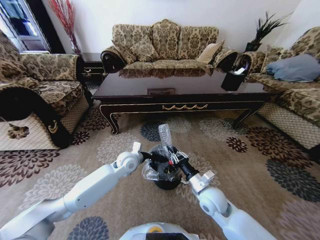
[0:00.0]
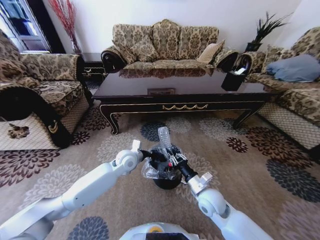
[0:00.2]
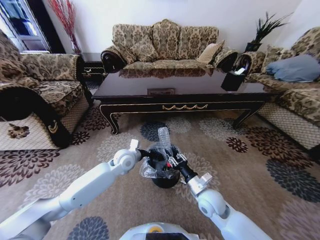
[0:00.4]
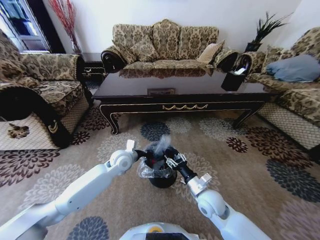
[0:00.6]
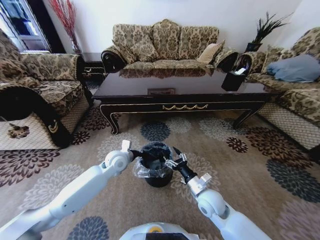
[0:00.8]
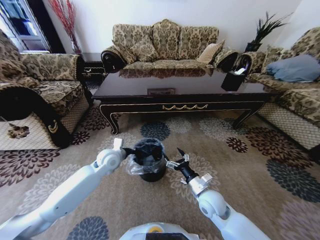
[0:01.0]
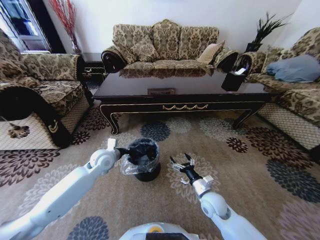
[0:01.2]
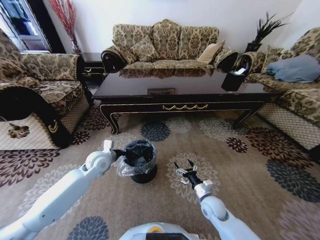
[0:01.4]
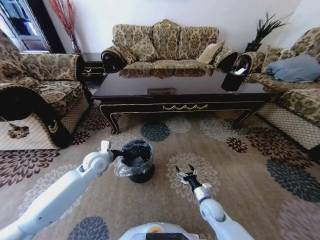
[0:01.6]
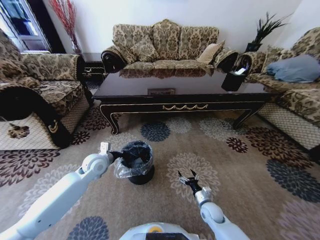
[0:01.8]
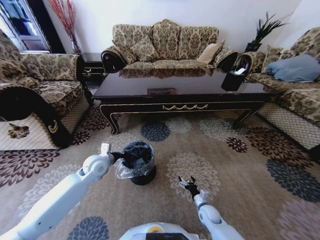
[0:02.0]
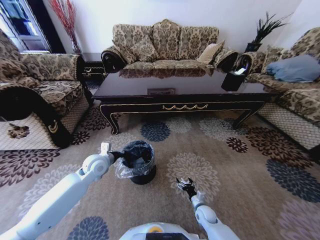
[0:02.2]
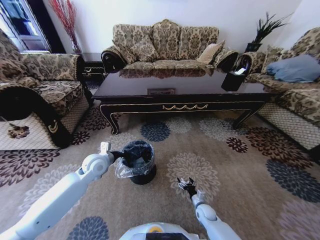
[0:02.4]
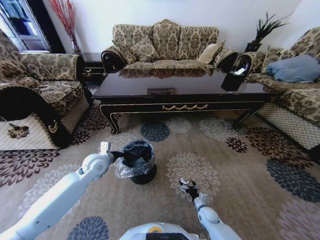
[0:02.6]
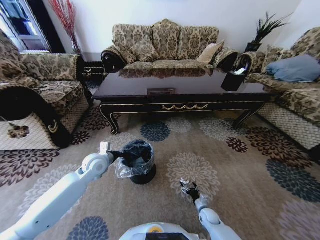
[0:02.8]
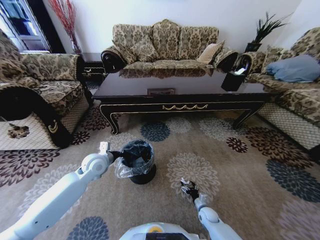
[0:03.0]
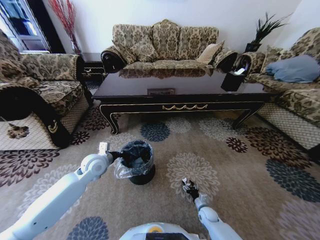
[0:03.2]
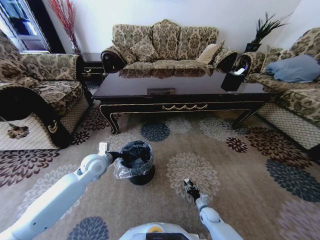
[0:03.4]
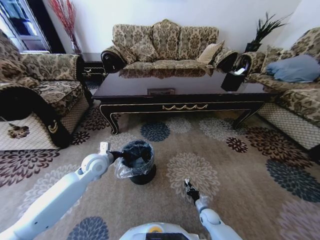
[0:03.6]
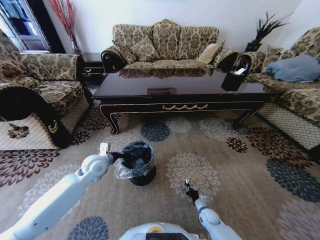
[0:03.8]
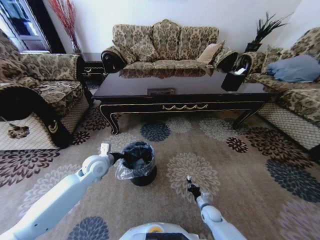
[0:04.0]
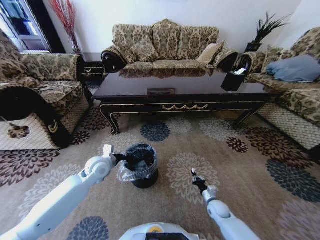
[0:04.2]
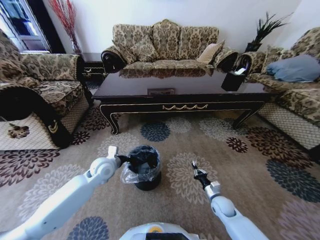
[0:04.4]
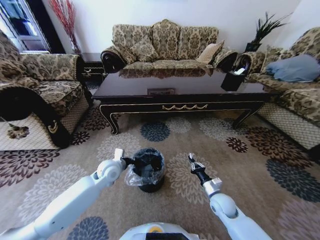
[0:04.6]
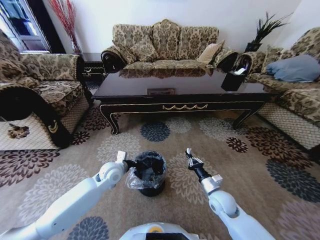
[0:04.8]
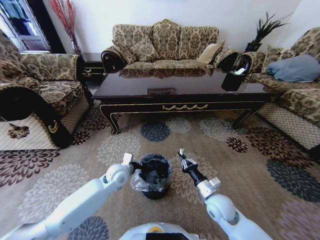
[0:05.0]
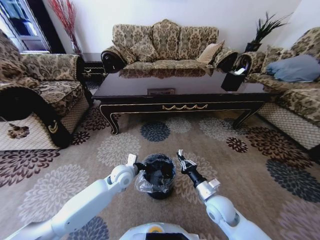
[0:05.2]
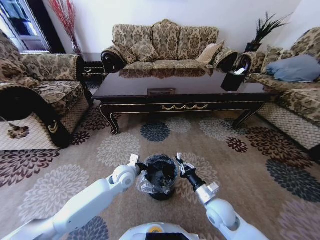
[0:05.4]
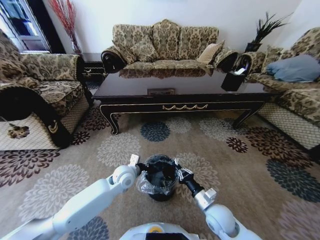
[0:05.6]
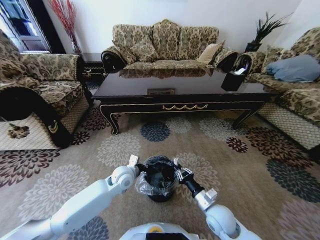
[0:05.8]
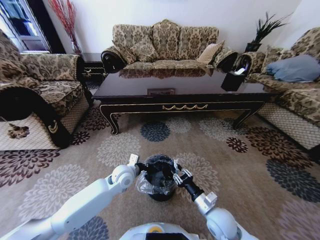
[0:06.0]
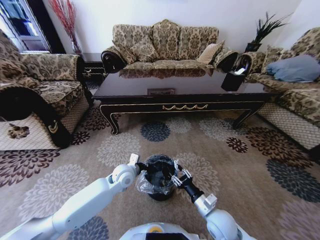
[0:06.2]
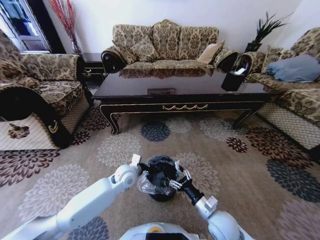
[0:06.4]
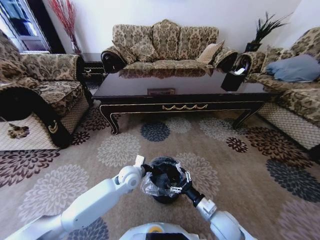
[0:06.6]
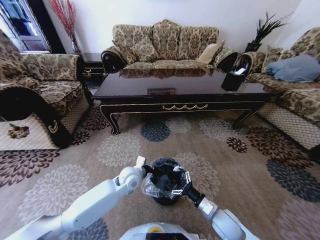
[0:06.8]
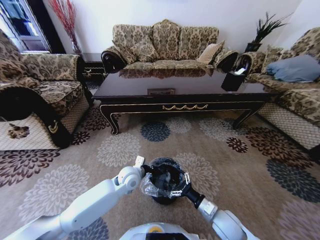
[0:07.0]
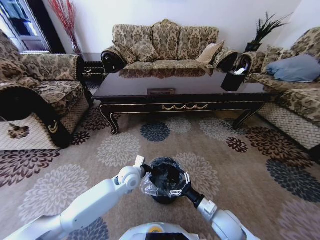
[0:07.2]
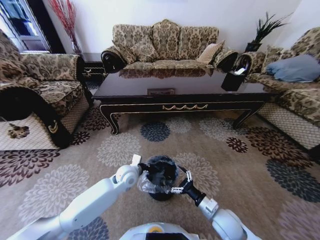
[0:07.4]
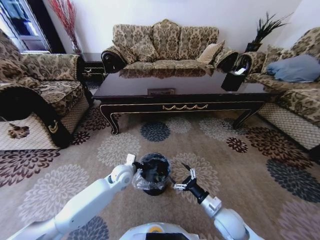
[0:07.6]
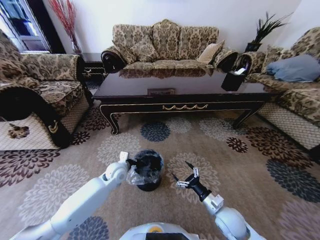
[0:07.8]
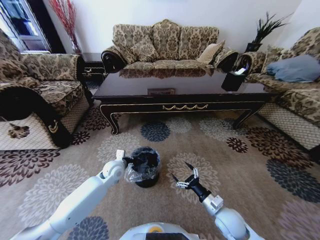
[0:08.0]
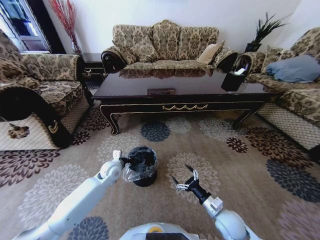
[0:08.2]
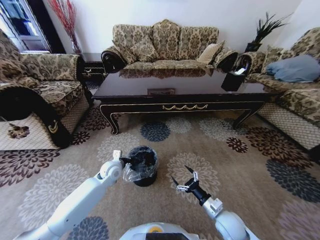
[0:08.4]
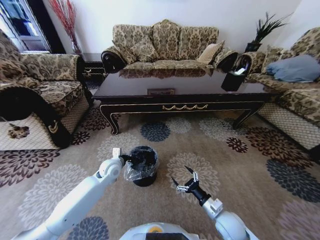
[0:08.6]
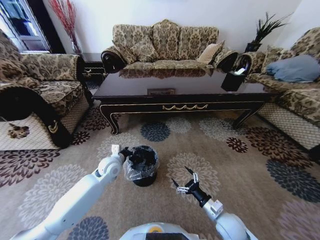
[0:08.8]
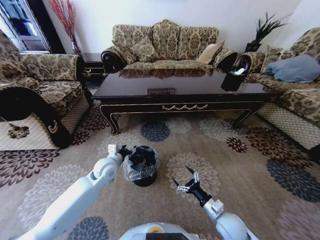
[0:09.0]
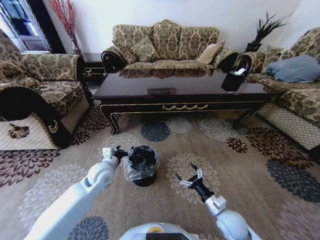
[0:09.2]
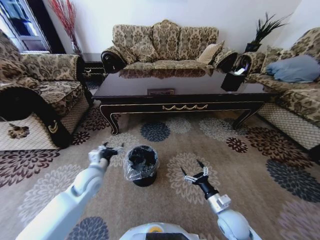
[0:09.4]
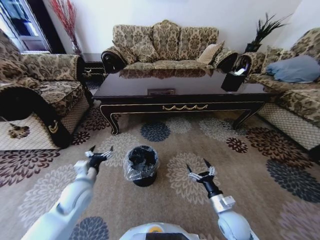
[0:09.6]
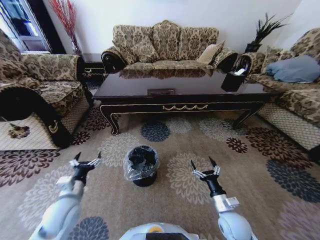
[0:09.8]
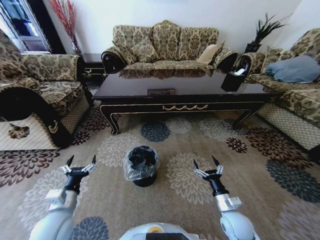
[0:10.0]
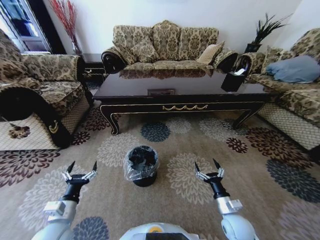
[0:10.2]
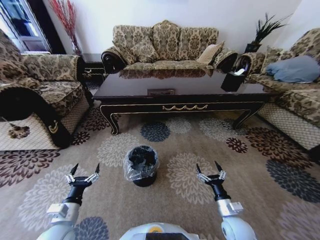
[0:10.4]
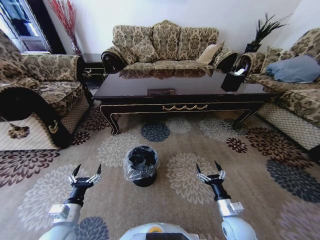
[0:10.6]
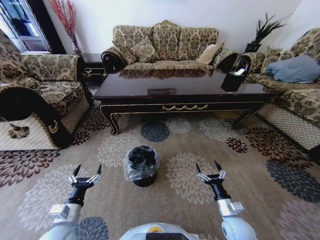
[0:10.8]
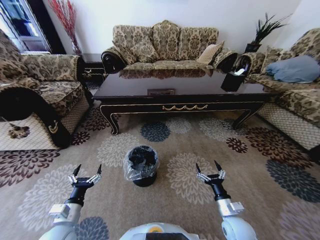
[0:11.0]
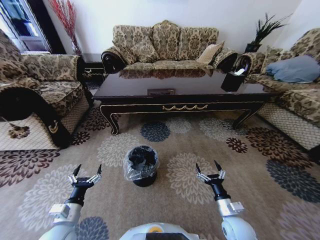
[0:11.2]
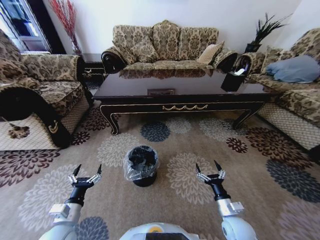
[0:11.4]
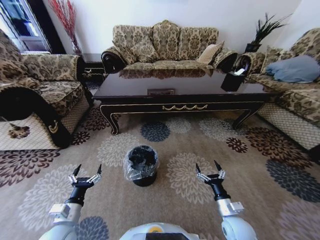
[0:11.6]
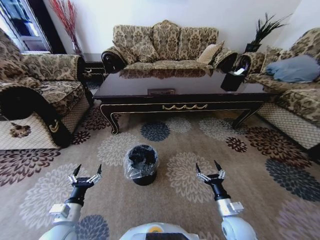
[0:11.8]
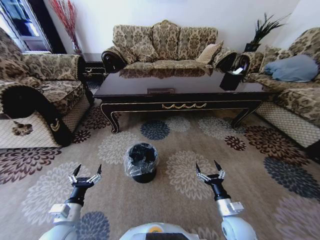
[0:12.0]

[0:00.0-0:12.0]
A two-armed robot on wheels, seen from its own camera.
Task of the whole recording: Move to the front of the table and pick up the trash from the floor, then place it into the trash bin.
0:00.0 to 0:01.6: The right gripper is displaced downward by about 15 cm, and opens up, while the left gripper travels to the left by roughly 15 cm.
0:01.6 to 0:03.0: The right gripper shifts about 15 cm downward.
0:03.0 to 0:04.4: The right gripper shifts some 10 cm upward, and closes.
0:04.4 to 0:06.0: The right gripper heads upward, to the left and backward, covering about 15 cm, while the left gripper travels to the right by approximately 10 cm.
0:06.0 to 0:07.6: The right gripper opens its fingers.
0:07.6 to 0:09.0: The left gripper is displaced to the left and upward by roughly 10 cm, and opens up.
0:09.0 to 0:10.4: The left gripper moves backward and to the left, about 25 cm.
0:10.4 to 0:12.0: Neither gripper changes place.

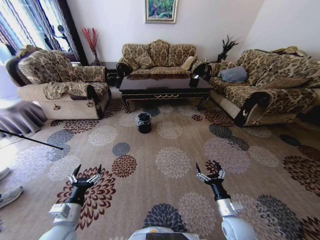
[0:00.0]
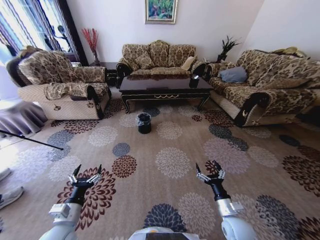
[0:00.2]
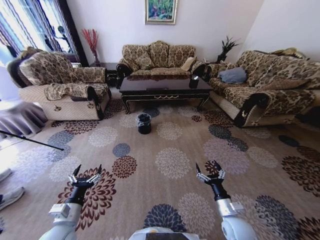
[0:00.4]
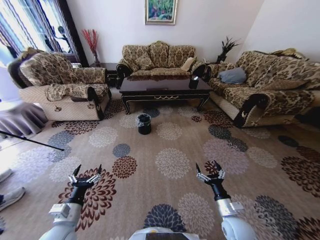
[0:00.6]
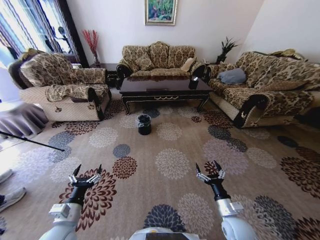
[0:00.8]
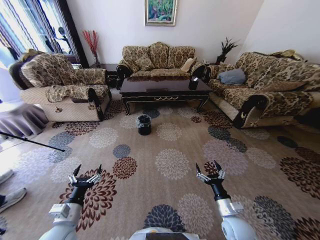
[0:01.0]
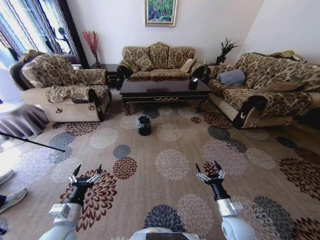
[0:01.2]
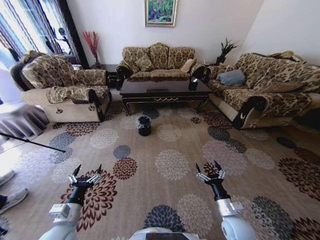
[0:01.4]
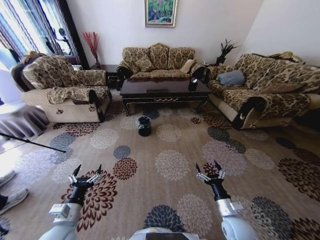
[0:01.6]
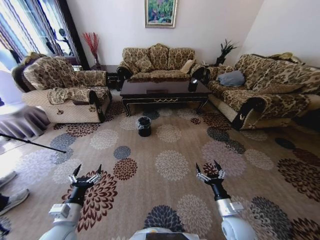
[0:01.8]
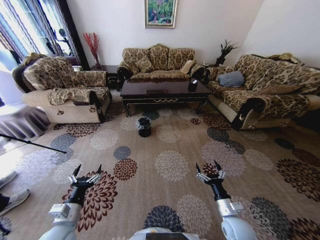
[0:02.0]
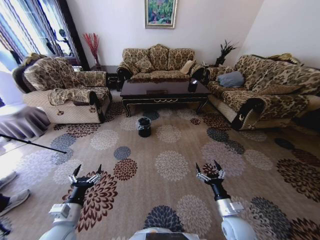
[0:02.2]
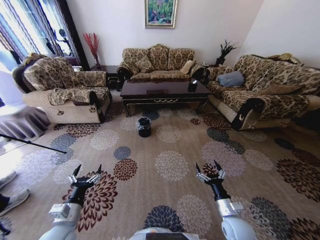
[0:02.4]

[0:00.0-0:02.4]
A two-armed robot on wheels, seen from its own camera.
Task of the whole recording: Move to the front of the table and pick up the trash from the floor, then place it into the trash bin.
0:00.0 to 0:02.4: Both grippers stay put.
